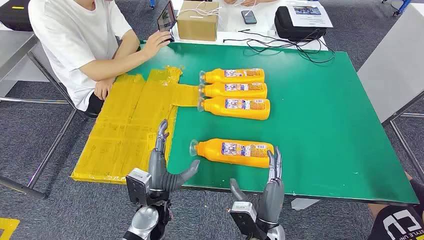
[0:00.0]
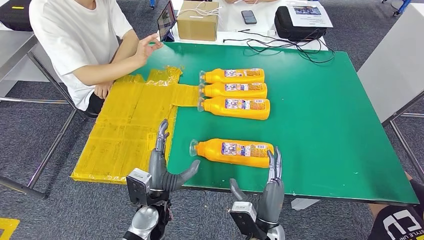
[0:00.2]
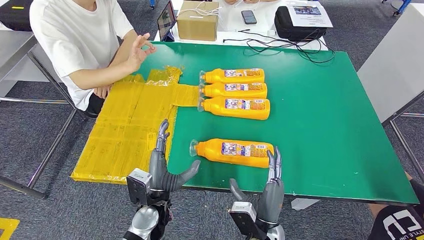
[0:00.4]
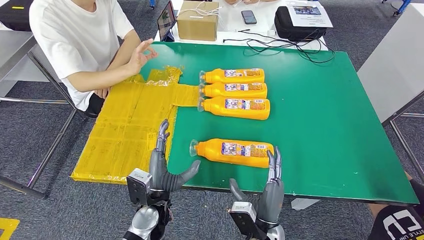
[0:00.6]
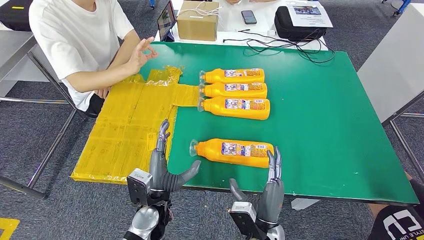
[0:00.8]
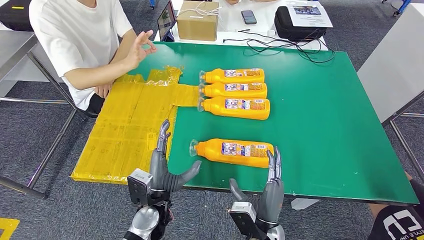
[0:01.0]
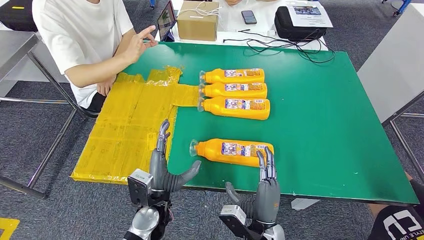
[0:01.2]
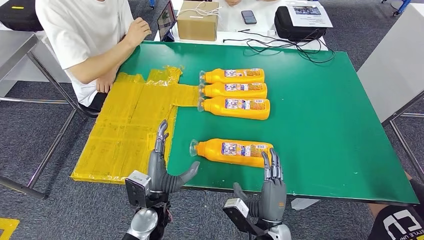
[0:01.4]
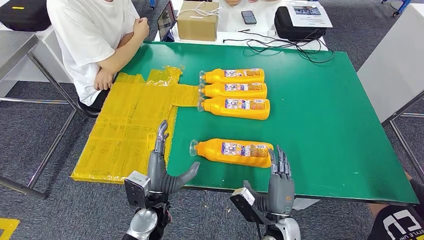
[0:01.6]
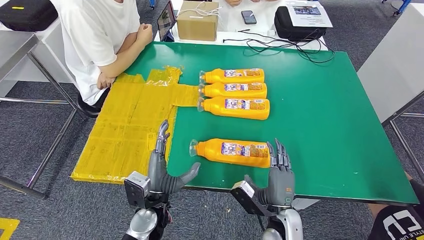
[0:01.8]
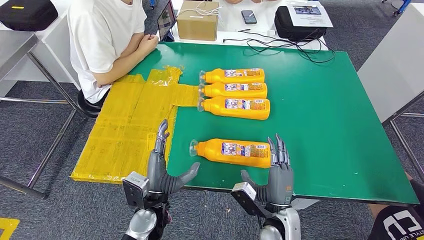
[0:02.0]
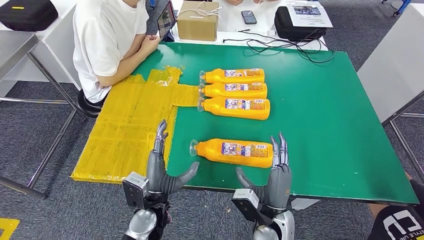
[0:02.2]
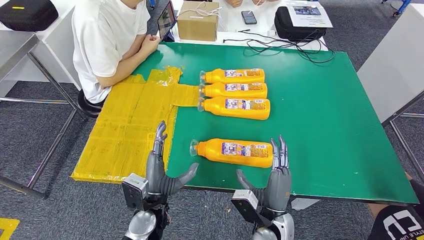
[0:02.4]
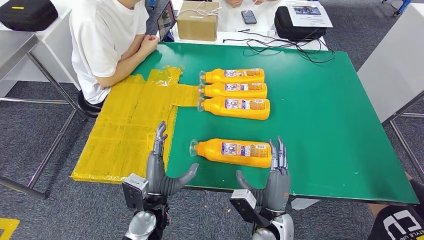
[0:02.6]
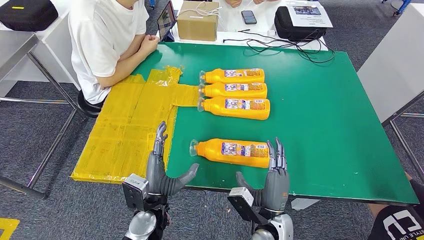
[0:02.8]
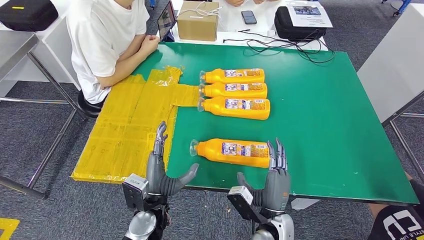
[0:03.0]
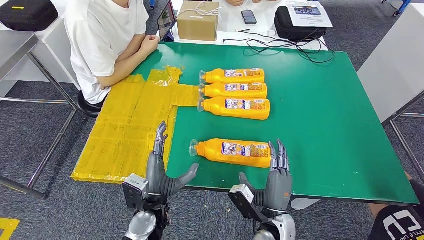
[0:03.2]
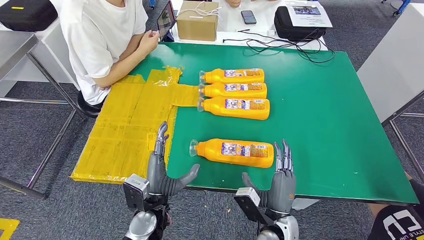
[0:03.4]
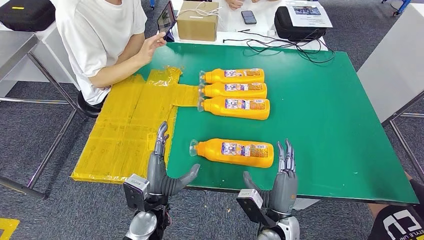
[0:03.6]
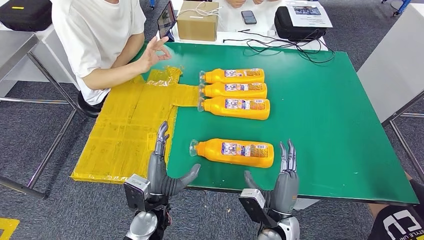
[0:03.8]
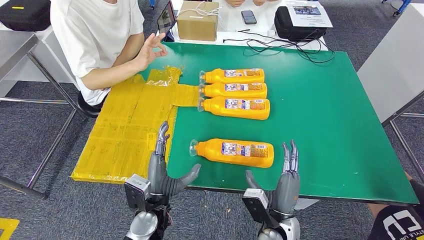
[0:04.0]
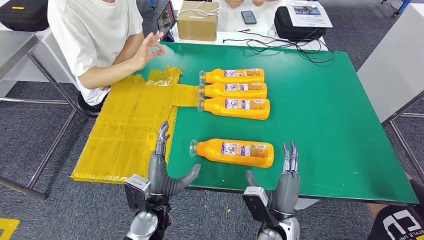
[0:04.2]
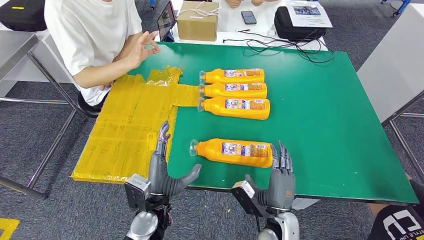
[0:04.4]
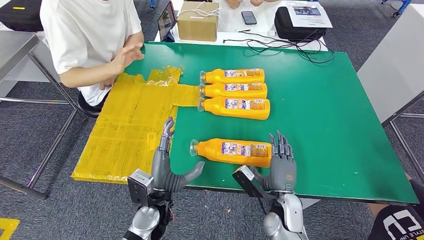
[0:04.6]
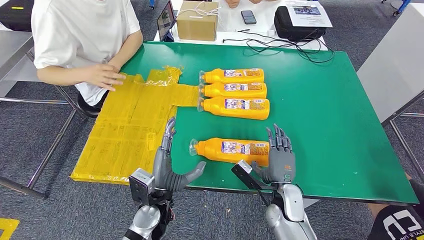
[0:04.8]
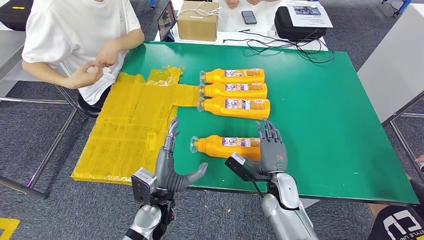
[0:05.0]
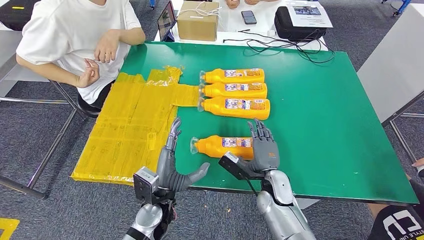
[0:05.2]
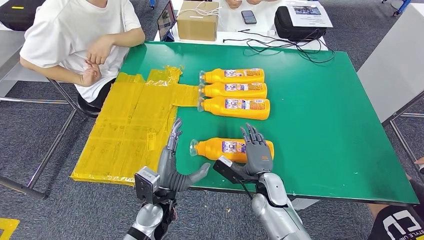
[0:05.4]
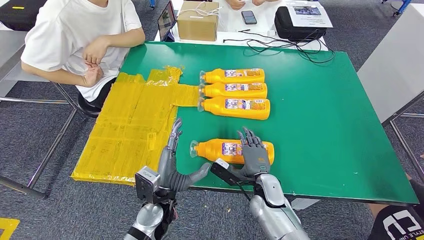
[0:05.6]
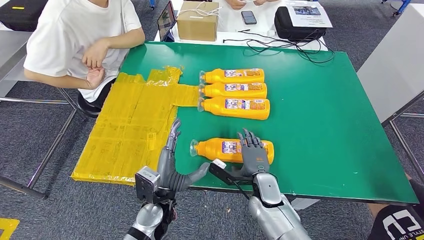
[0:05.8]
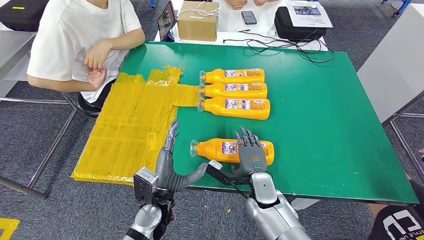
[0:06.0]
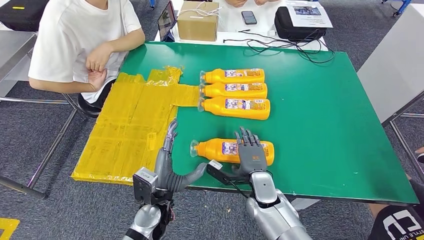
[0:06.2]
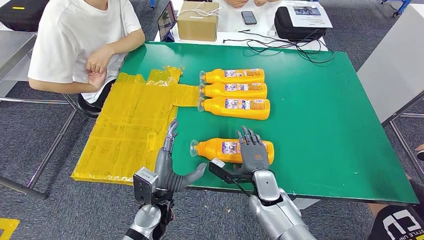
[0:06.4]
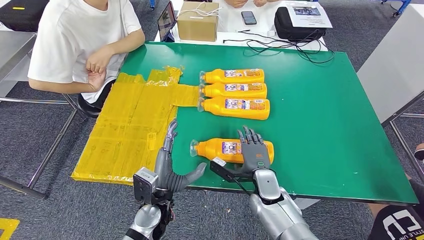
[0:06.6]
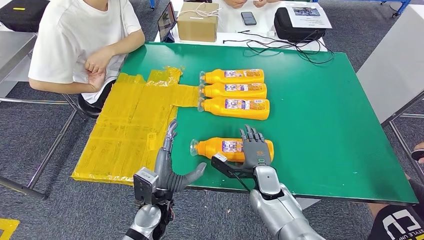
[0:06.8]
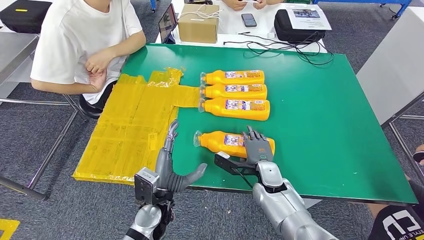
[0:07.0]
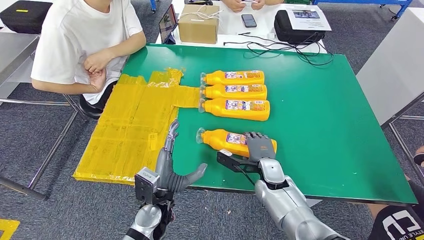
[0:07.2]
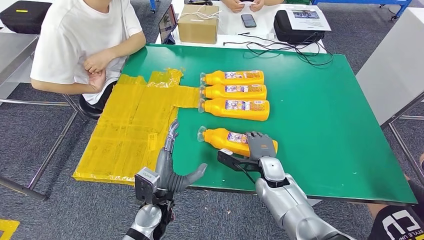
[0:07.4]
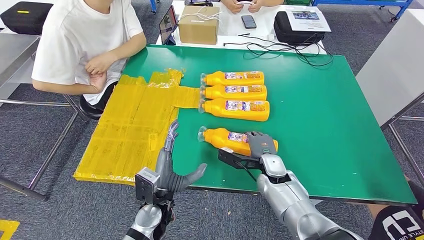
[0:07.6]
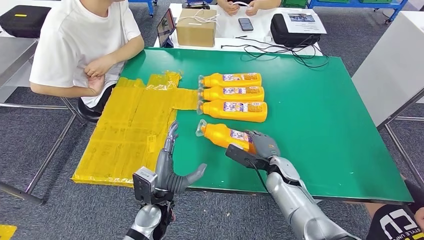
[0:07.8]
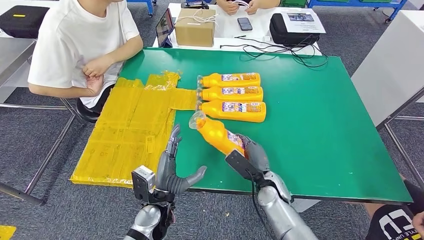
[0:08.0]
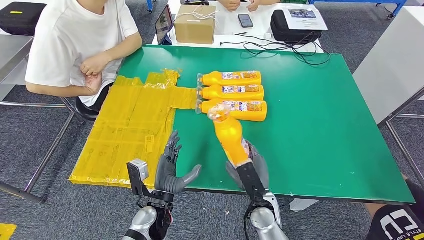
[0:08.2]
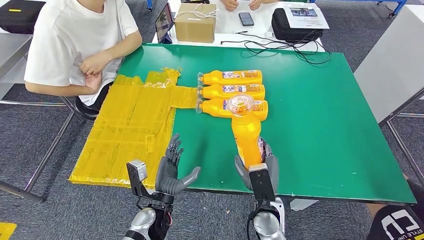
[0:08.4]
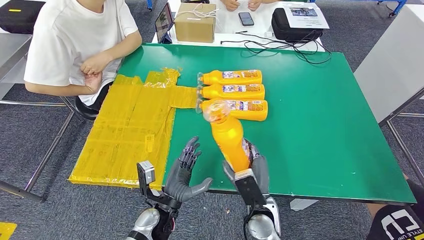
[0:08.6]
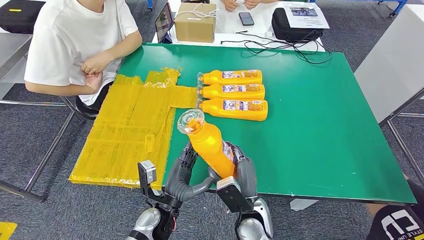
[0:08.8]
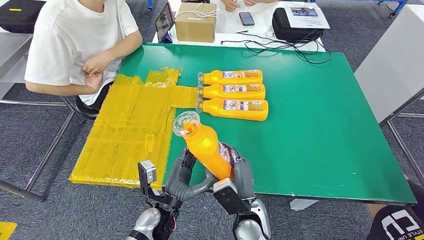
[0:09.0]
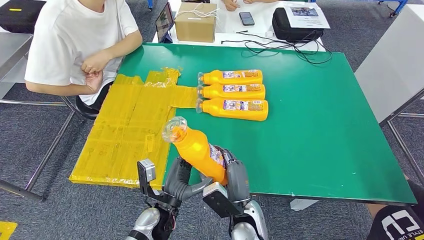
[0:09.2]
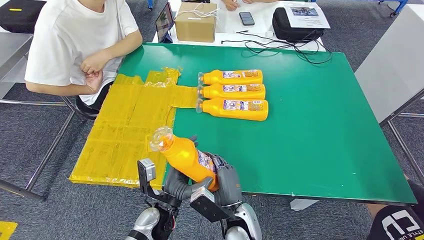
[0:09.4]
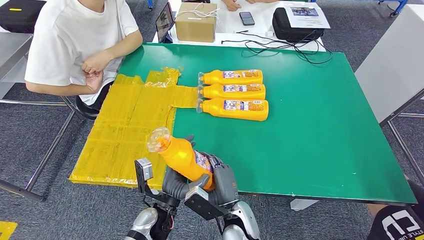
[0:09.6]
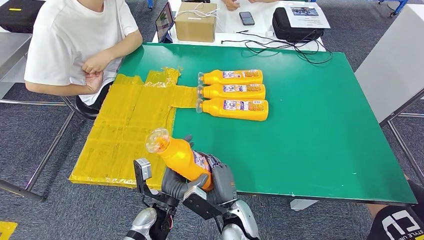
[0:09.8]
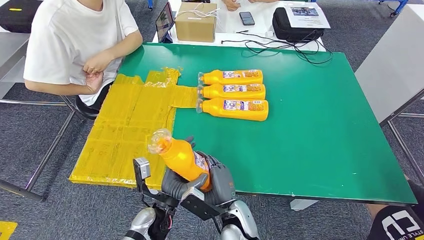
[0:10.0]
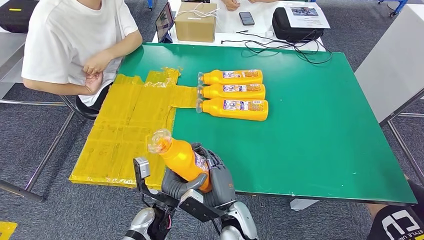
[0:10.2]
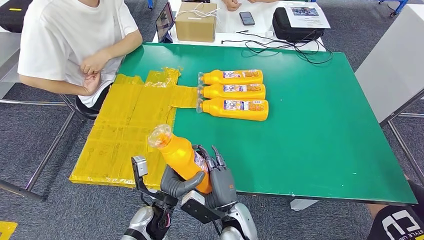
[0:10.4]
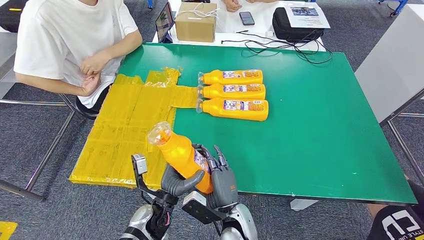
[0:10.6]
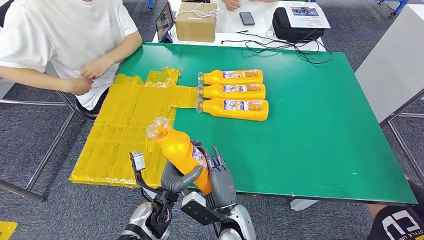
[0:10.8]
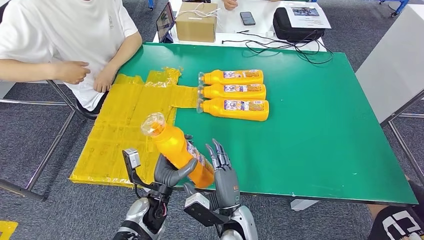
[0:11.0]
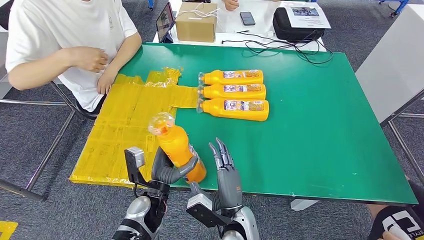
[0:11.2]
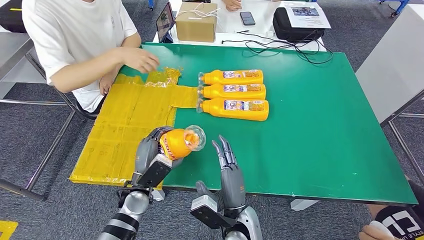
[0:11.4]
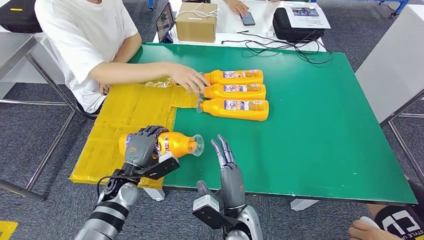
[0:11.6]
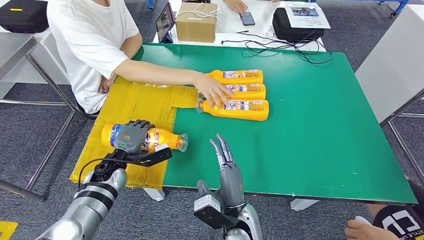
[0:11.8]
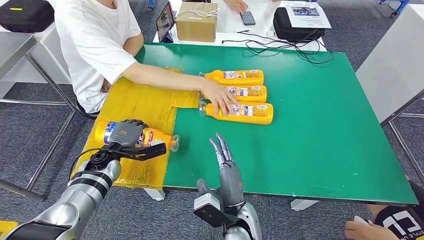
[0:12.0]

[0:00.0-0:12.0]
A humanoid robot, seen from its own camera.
Step, 0:00.0 to 0:08.4: Take the fast-moving consumer goods bottle from the table.
0:01.6 to 0:04.4: The hands make only small movements.
0:04.4 to 0:06.0: The right hand travels forward by some 10 cm.
0:09.0 to 0:10.4: The hands stay close to where they were, moving slightly.

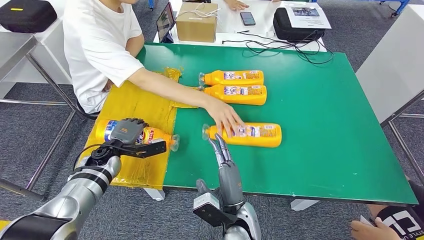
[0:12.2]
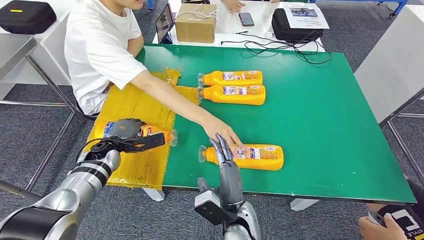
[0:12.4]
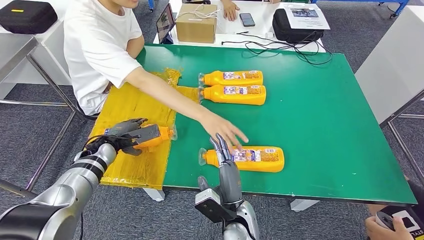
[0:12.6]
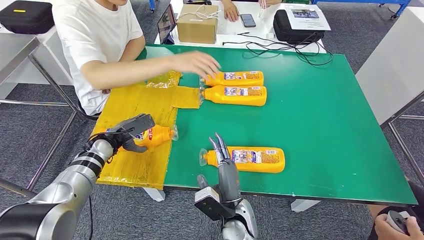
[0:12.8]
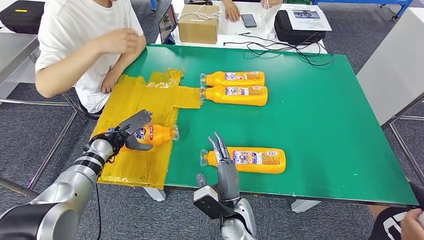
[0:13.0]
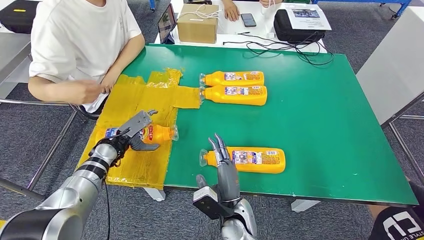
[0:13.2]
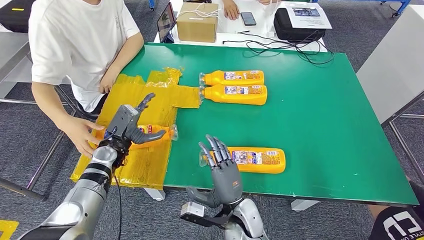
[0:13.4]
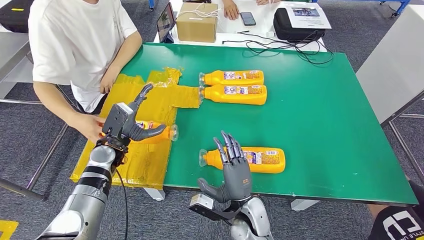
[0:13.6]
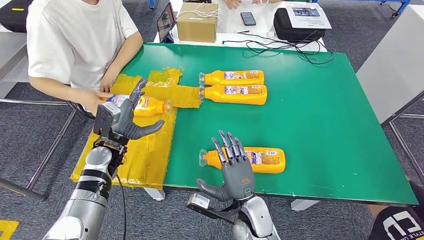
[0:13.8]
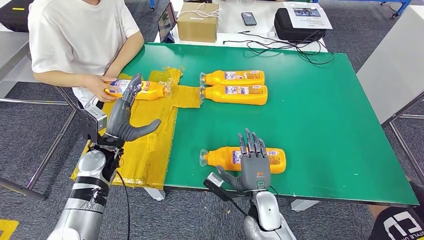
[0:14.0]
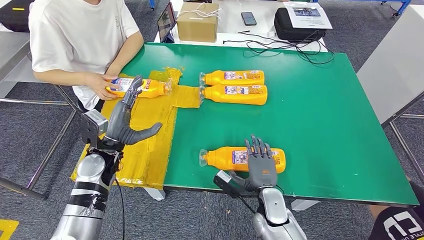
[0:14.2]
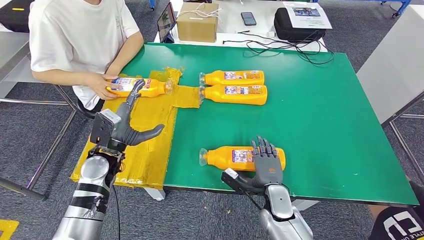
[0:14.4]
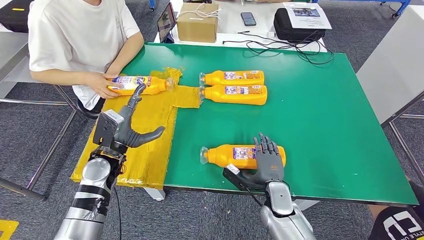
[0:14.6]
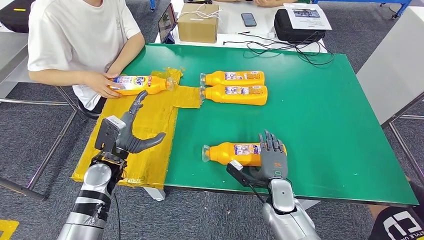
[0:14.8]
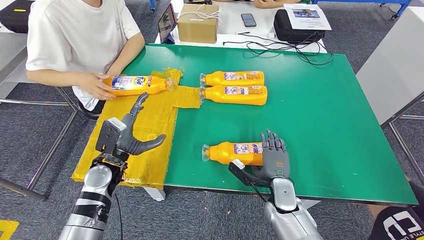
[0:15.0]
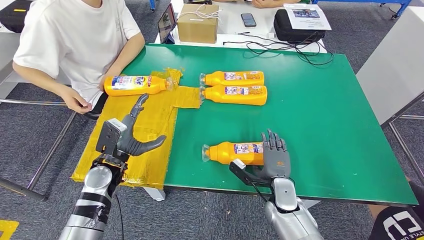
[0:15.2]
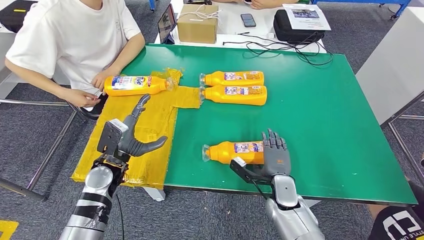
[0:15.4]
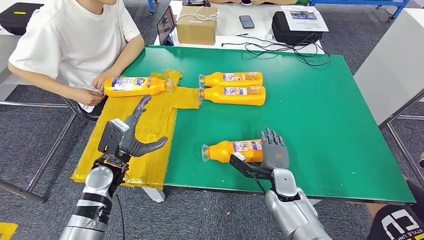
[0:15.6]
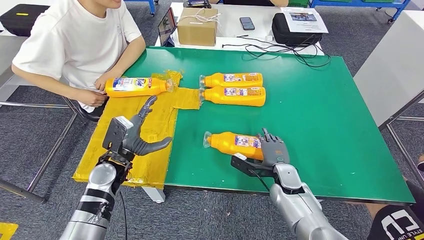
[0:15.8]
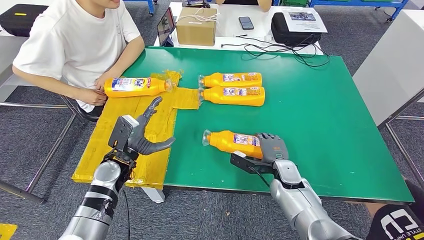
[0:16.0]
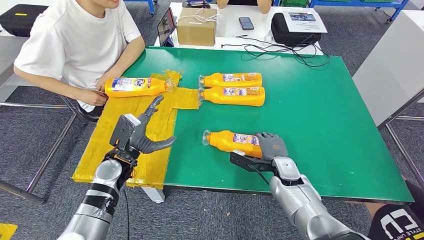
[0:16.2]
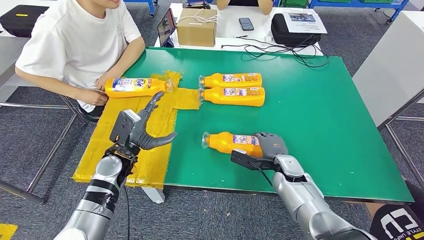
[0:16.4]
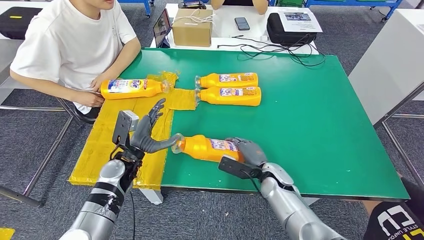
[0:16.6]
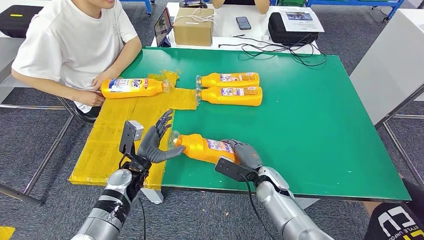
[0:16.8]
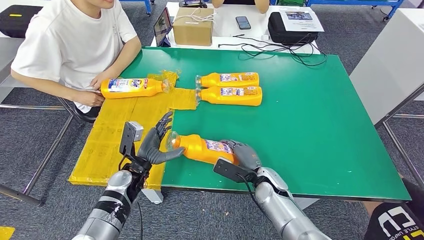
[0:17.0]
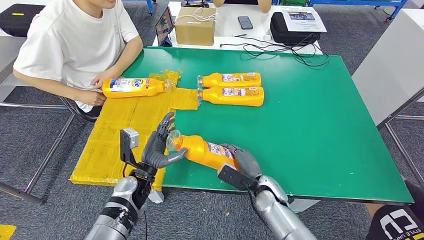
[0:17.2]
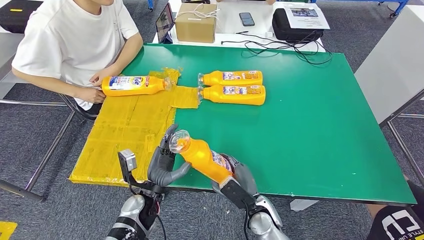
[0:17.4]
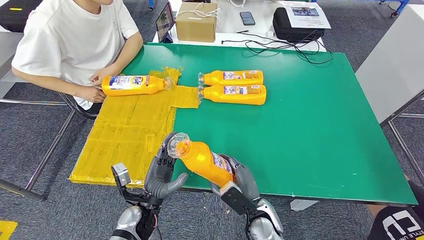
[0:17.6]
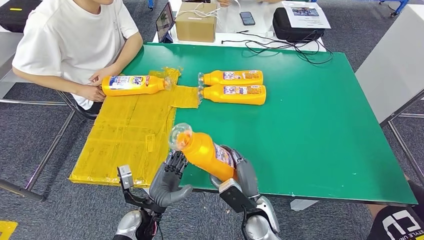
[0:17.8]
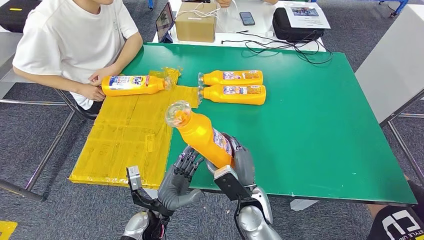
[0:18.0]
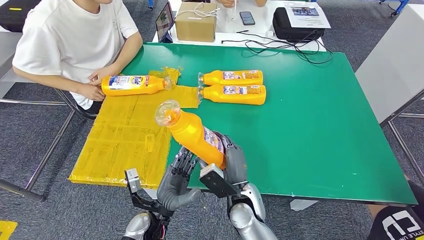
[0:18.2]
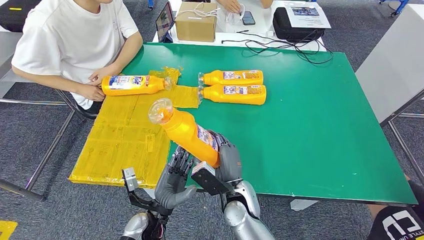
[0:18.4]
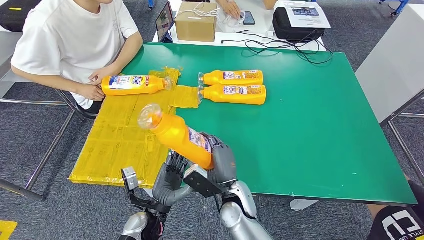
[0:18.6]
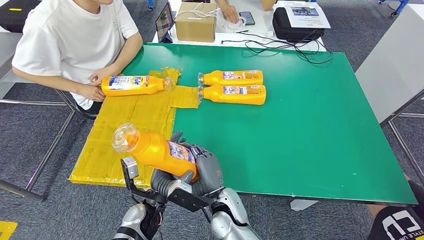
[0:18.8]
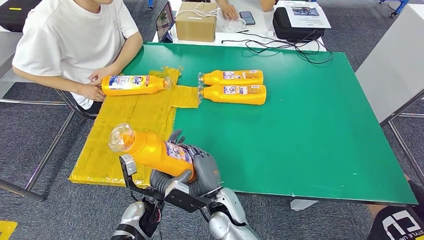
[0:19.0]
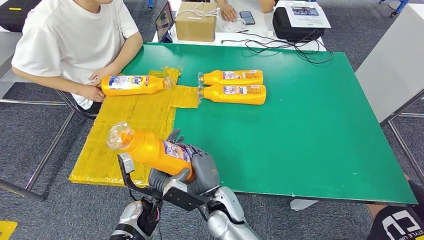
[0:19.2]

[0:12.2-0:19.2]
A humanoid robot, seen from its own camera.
Step, 0:12.2 to 0:14.6: Flip the fast-moving consumer goods bottle to the front side.
Step, 0:14.8 to 0:18.0: Pick up the fast-moving consumer goods bottle from the table.
0:17.8 to 0:19.2: The right hand moves to the left, about 10 cm.
